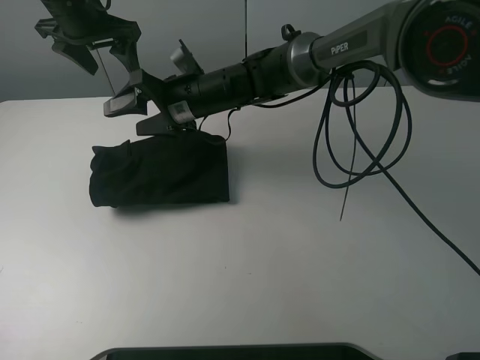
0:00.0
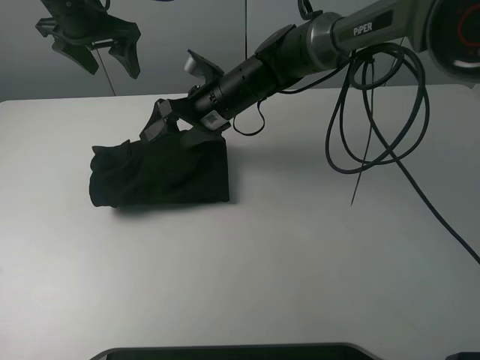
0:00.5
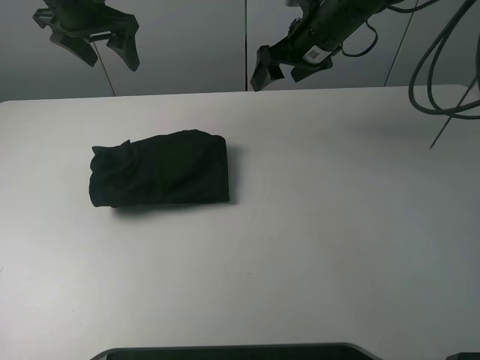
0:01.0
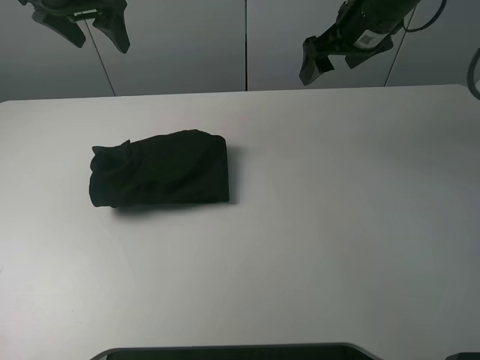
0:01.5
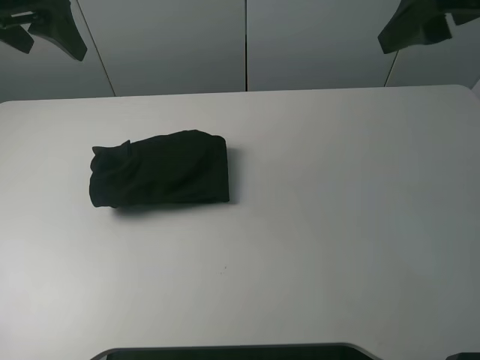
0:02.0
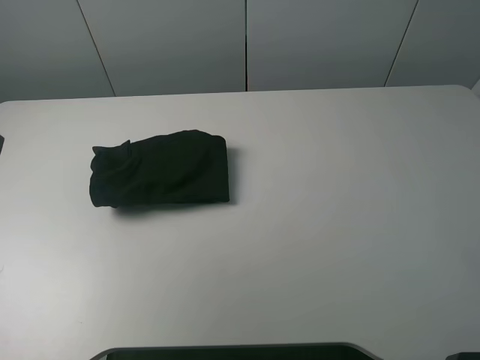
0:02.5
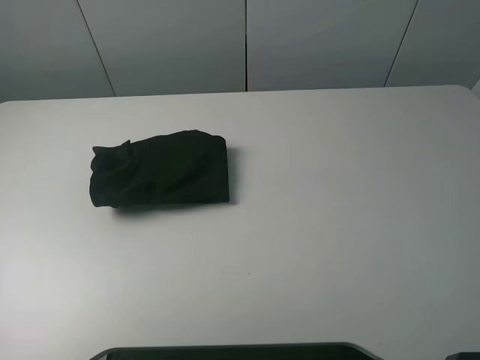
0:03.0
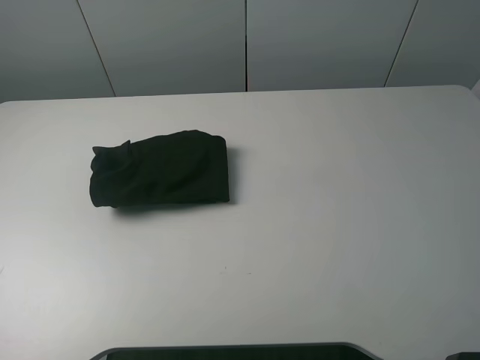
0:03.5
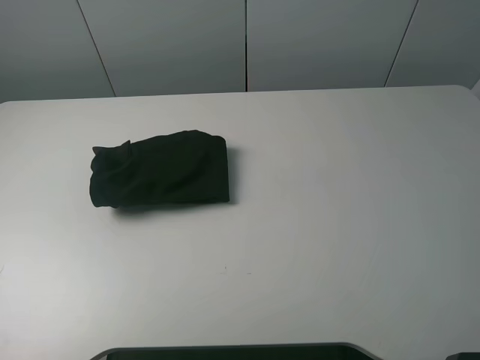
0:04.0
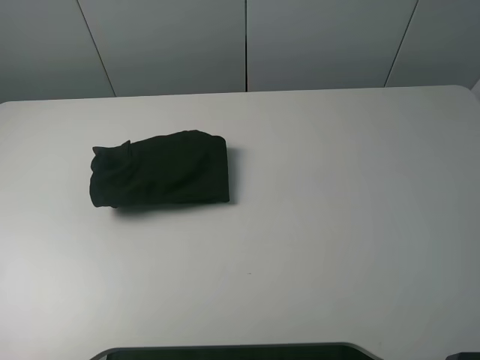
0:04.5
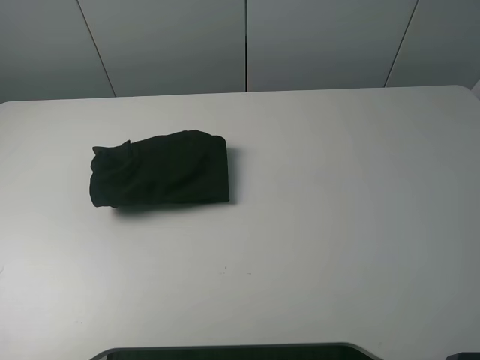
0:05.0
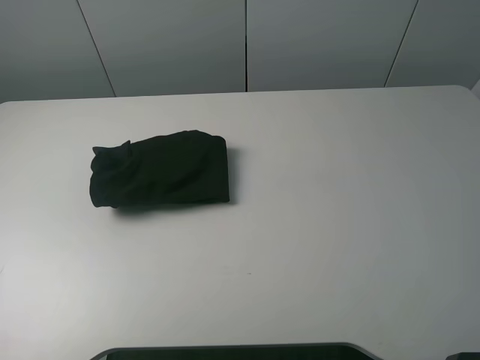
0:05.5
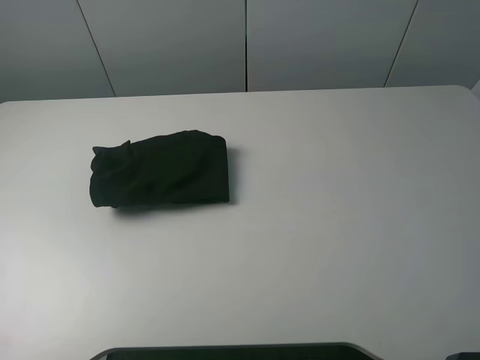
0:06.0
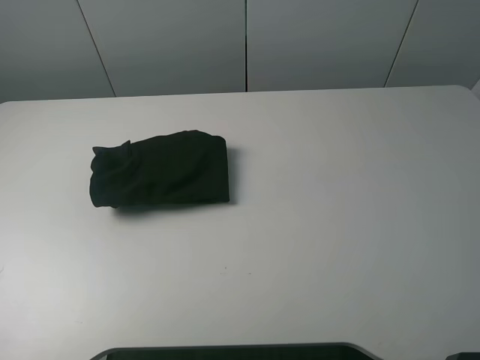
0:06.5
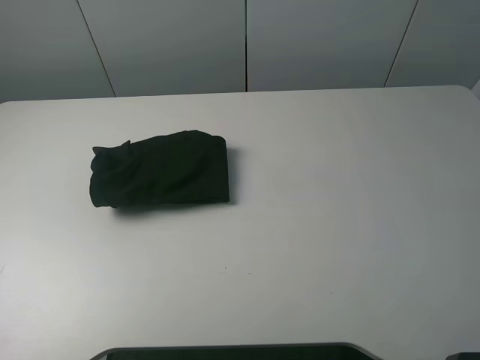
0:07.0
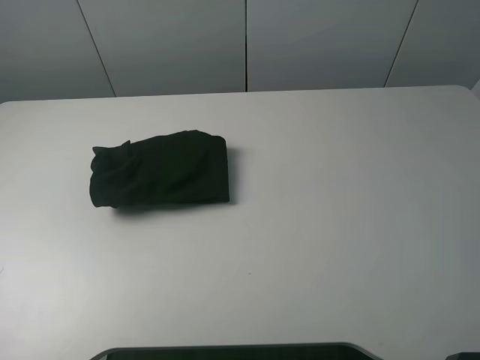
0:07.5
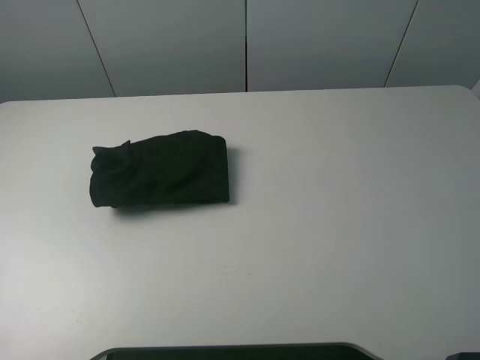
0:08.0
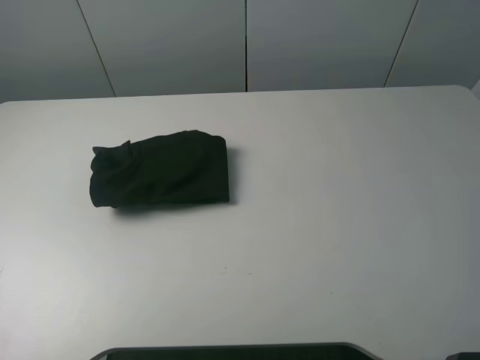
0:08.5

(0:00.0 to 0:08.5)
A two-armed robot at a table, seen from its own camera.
Task of the whole recording: fold the clothes on the table.
0:00.0 - 0:02.0: The left gripper heads backward and upward, covering roughly 15 cm. The right gripper heads to the right, upward and backward, covering approximately 40 cm.
0:02.0 - 0:04.0: The two grippers go about 25 cm backward.
0:06.5 - 0:08.5: Both grippers stay put.
